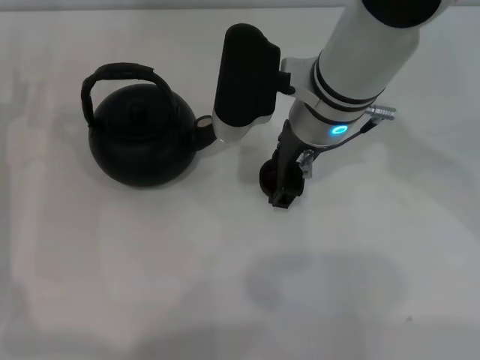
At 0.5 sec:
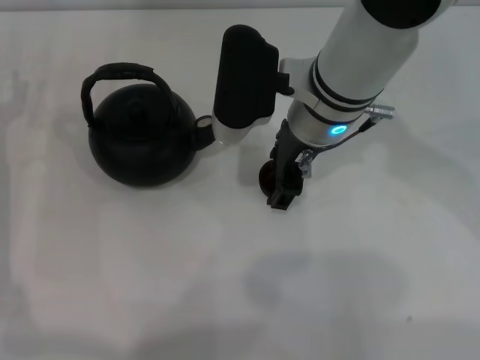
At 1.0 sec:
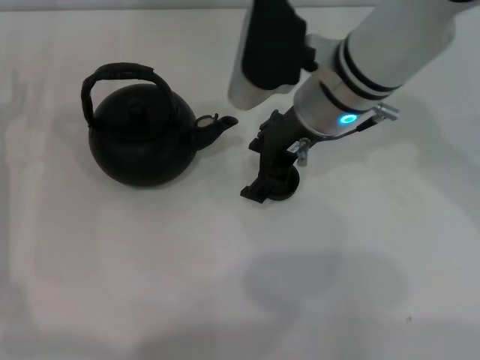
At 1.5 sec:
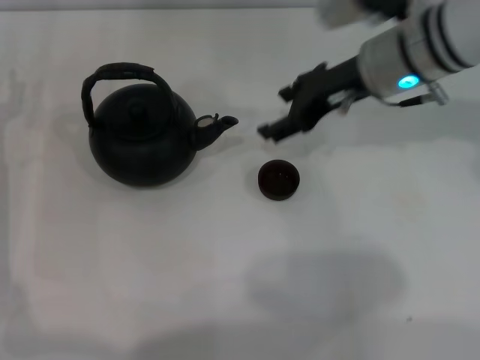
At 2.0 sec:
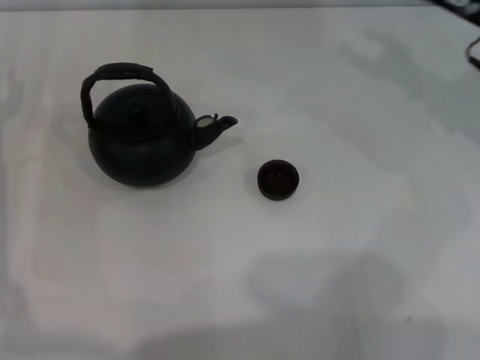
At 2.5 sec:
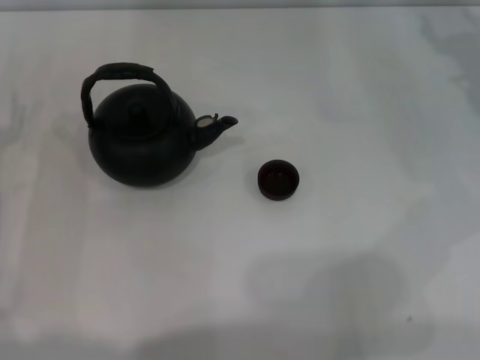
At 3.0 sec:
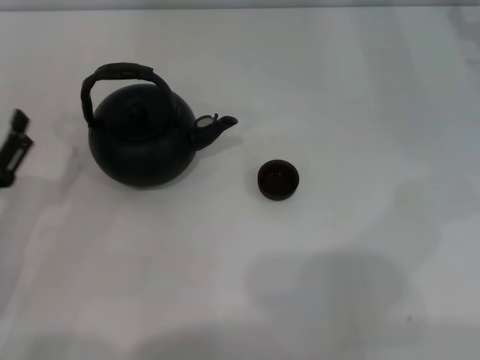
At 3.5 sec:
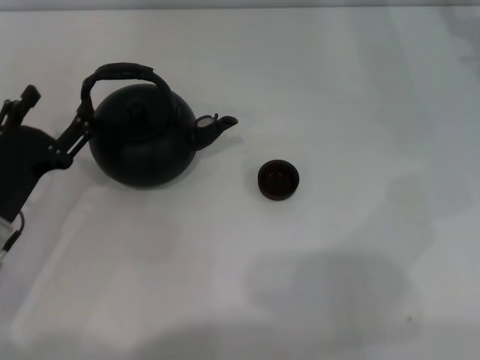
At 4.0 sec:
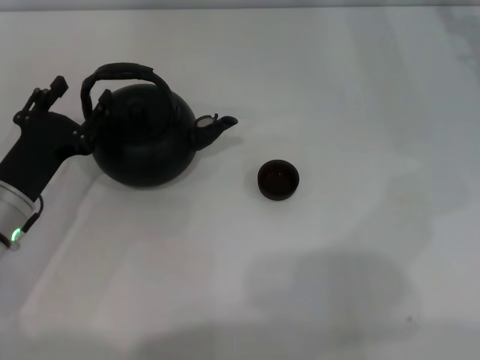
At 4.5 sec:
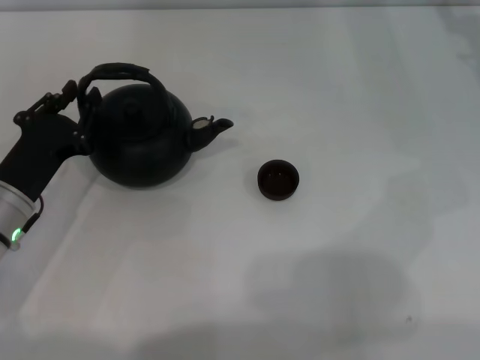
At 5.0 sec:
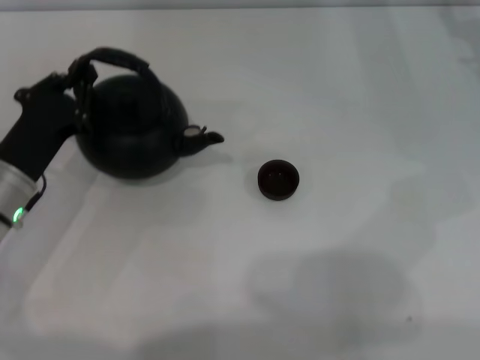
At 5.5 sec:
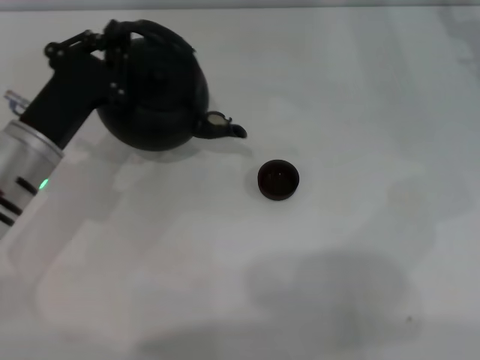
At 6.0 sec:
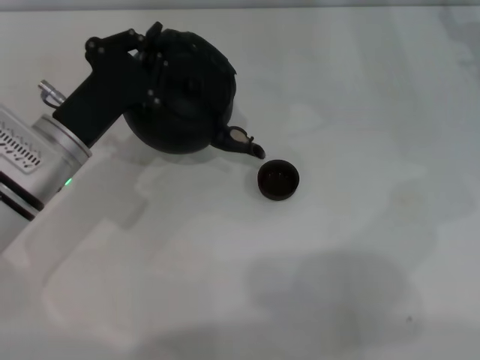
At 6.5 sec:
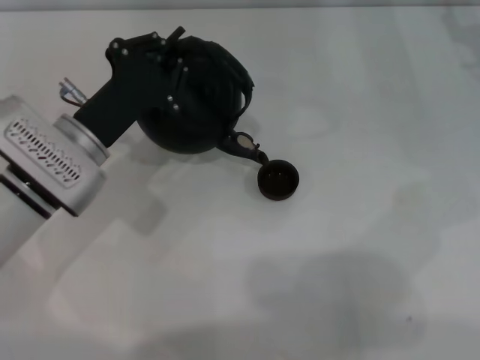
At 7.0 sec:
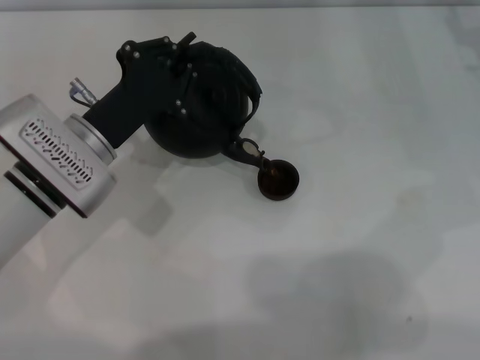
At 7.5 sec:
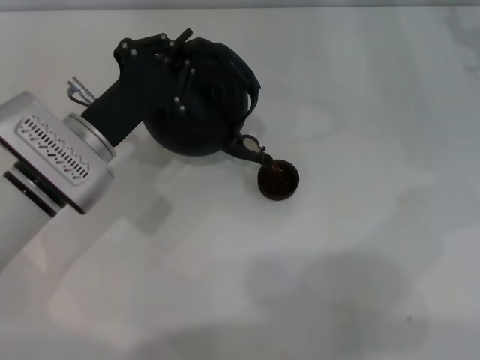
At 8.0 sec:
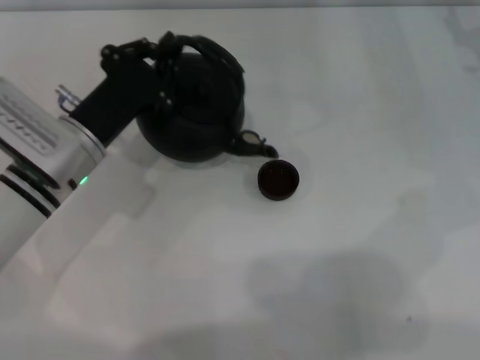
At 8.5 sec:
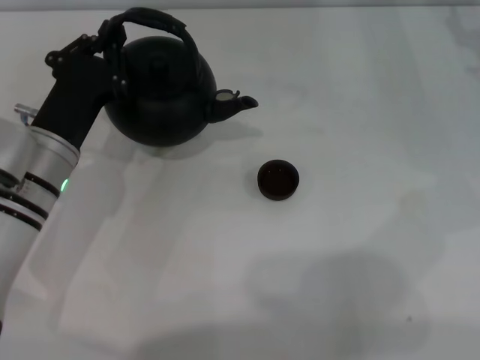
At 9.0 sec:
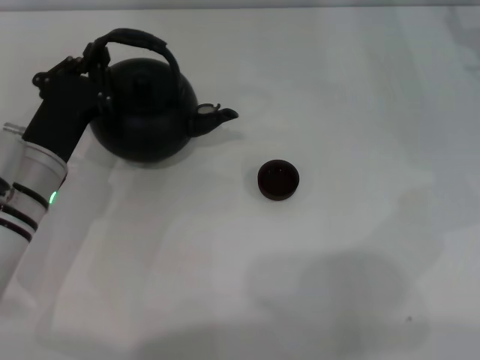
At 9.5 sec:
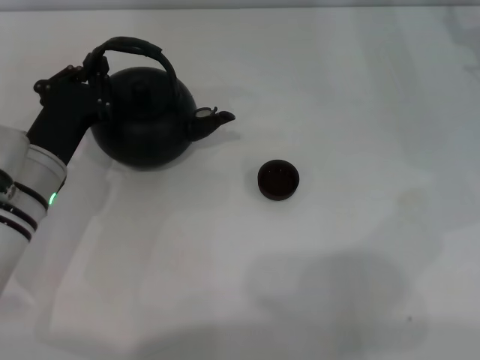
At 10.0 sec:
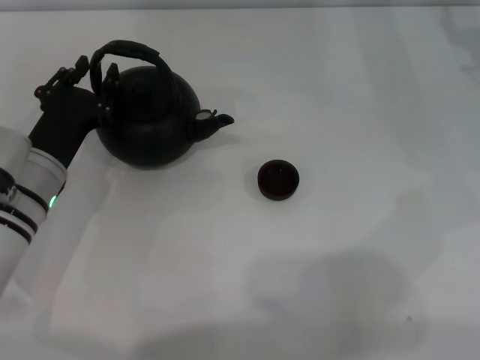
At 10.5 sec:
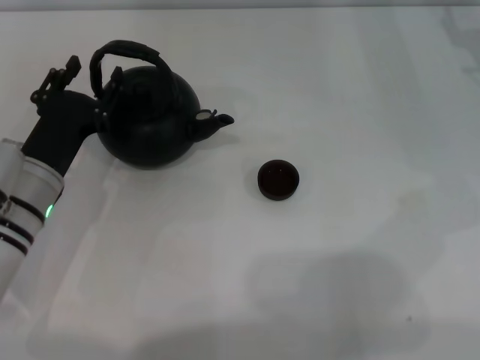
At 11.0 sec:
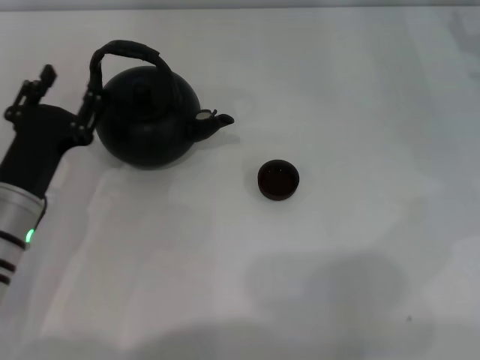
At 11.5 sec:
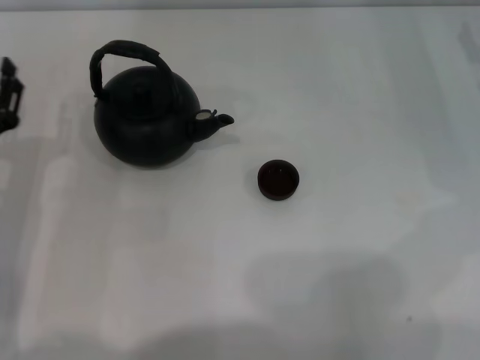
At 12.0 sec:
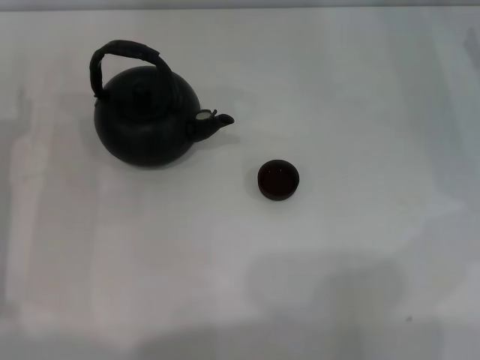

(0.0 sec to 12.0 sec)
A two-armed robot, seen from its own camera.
Task of the whole recording: Grasp the handle of the teapot with one hand and pour tea into the teacup.
Step, 1.5 sec - 5.0 sec: Pick up the teapot with the left gripper.
Step, 5.5 sec - 8.0 sec: Pour tea into the teacup with the left gripper.
Step, 8.5 sec - 11.0 sec: Put down the teapot with the left gripper.
0.0 sec - 2.0 sec: The right gripper shifts some 20 cm to the right, and opens.
2.0 sec - 4.0 sec: The left gripper goes approximately 5 cm to the right.
4.0 sec - 6.0 sec: The left gripper goes about 5 cm to the right, and closes its fingers.
6.0 sec - 8.0 sec: The grippers move only a little.
10.0 sec - 12.0 sec: The left gripper moves to the left, approximately 10 cm, and opens up.
